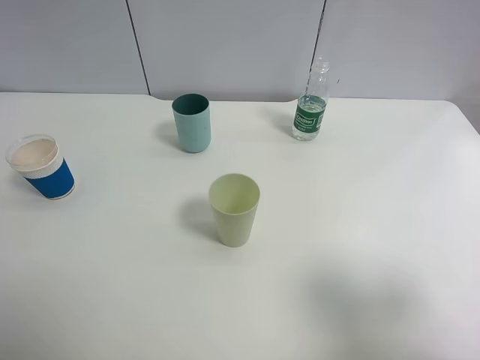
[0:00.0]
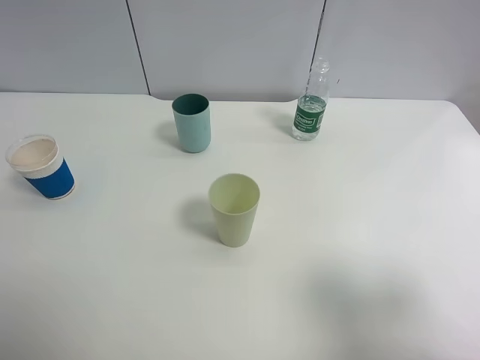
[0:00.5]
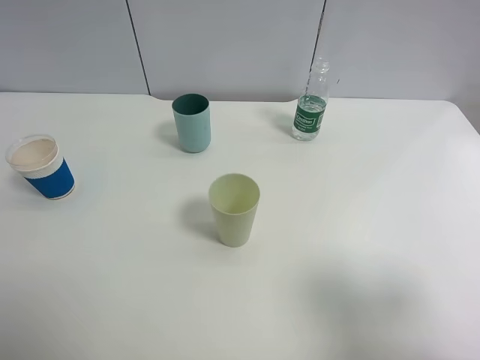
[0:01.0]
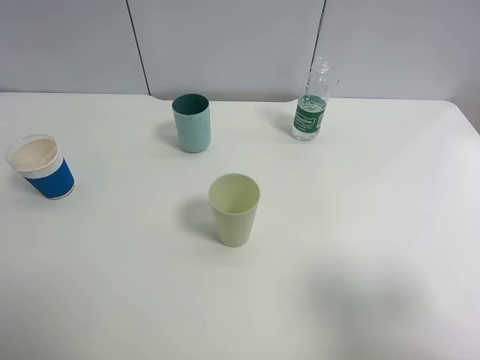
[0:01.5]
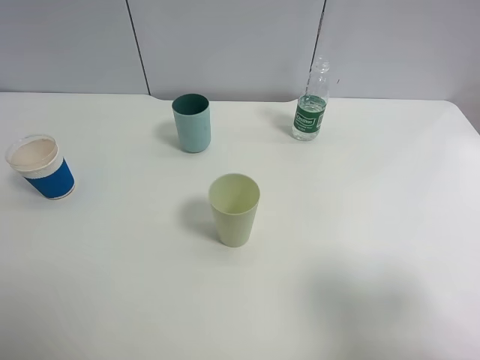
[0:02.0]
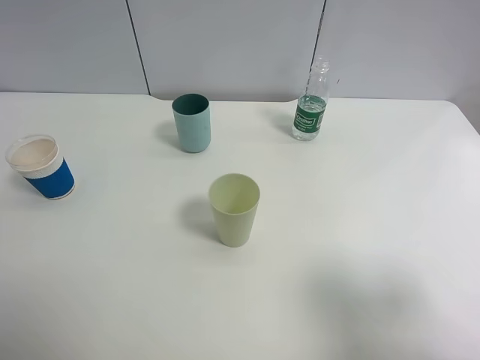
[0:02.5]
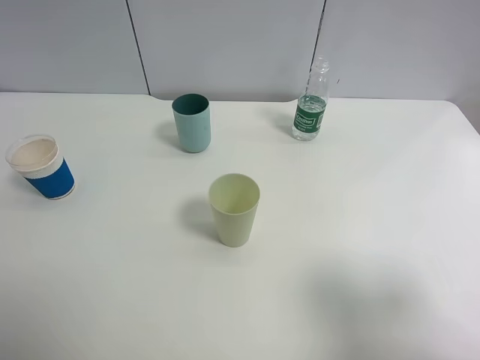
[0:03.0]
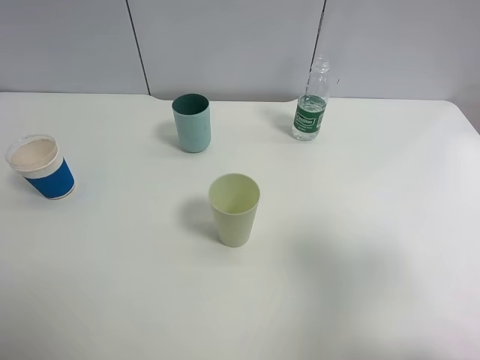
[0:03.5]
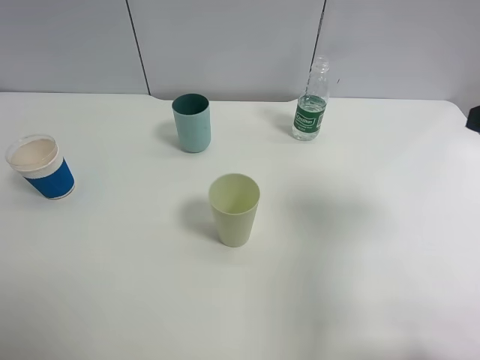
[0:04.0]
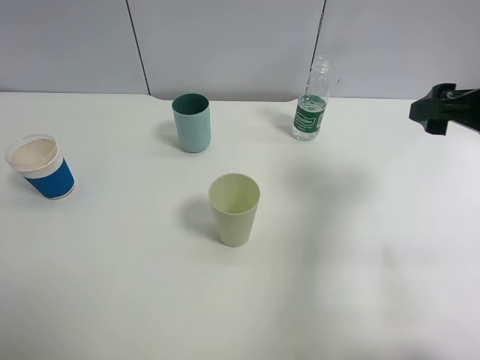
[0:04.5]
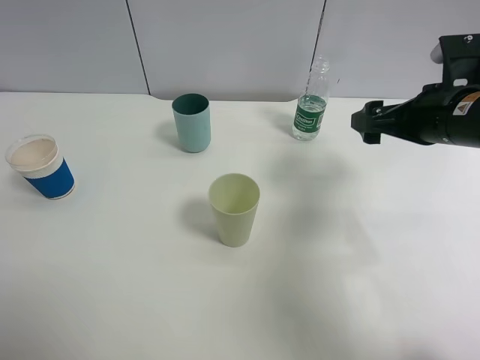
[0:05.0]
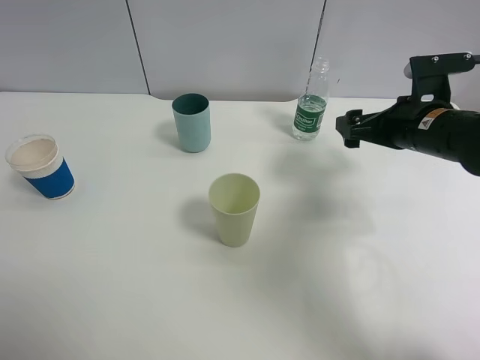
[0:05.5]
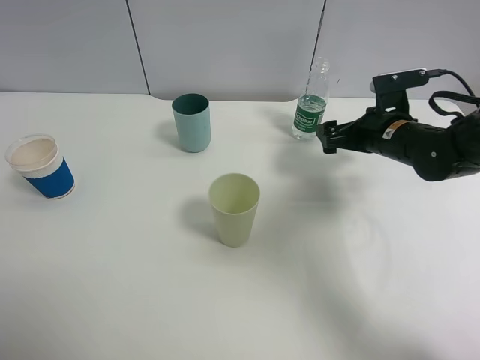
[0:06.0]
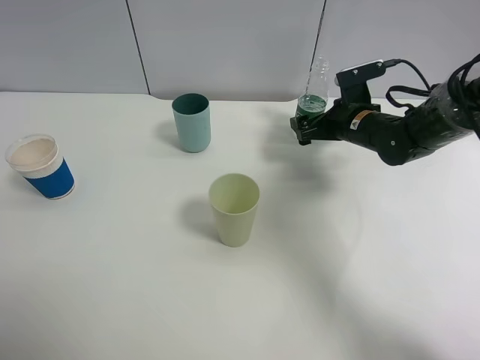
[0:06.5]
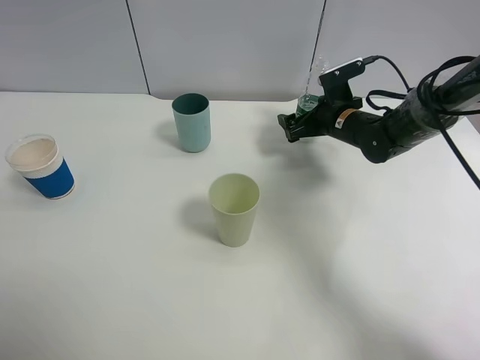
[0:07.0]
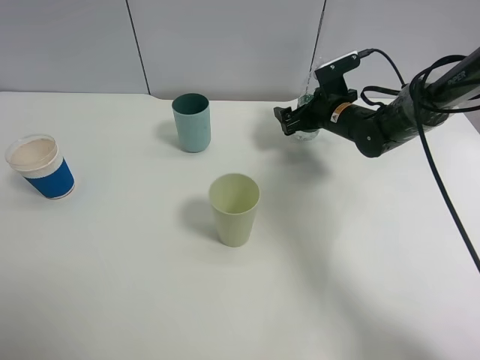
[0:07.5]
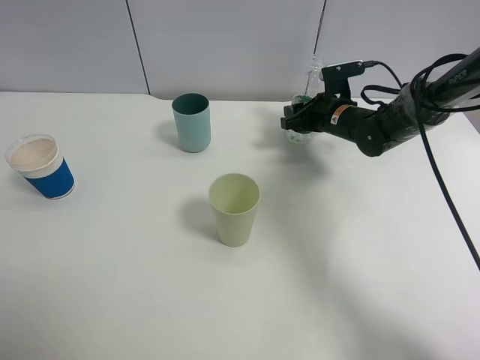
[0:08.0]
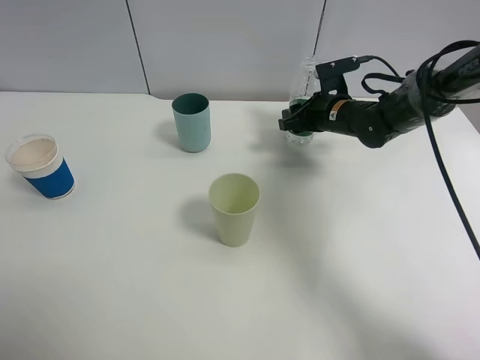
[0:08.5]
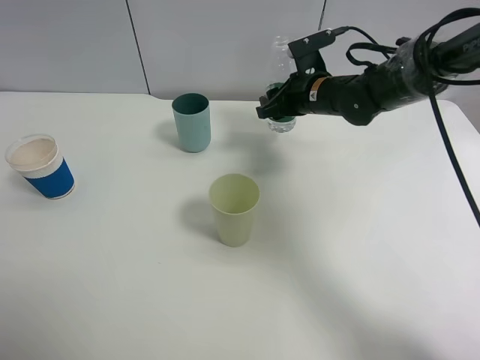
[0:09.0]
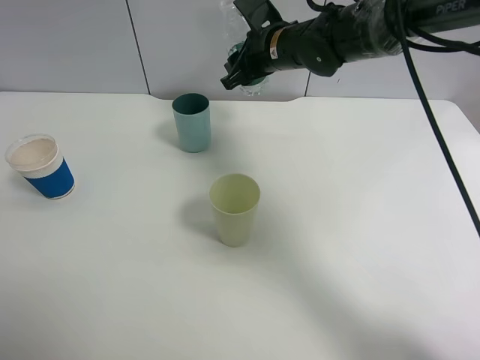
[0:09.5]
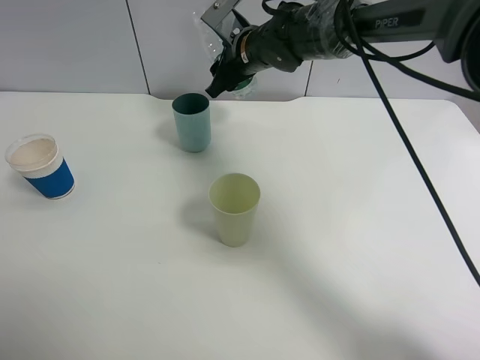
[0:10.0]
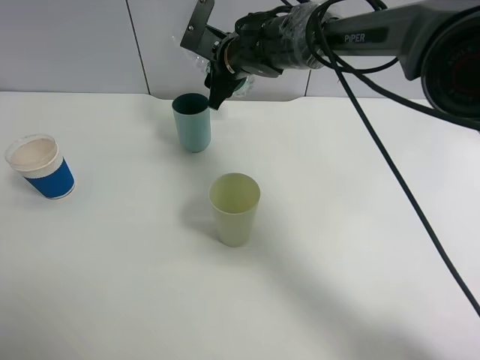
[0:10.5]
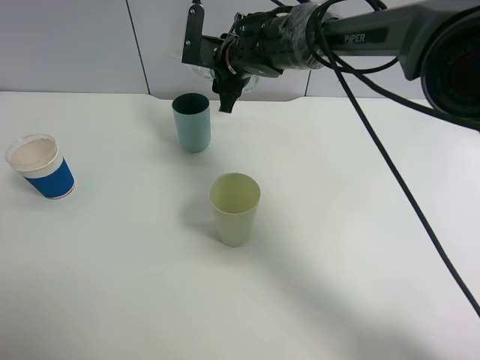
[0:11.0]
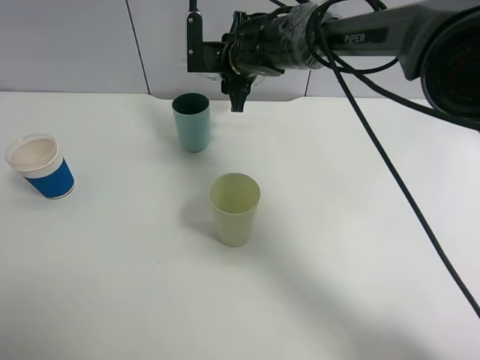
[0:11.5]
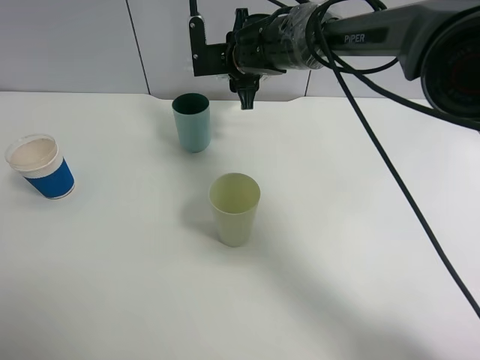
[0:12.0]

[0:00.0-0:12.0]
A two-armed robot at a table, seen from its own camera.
Task of the whole recording: use a clamp to hold the bottle of the drink, pour the beverage into a random cup, then clamp the cup containing the drink and pour the drink into another random cup.
Step, 0:00.0 to 0:08.5: Pick up the water bottle with right gripper.
0:00.0 to 0:02.0: The two grippers keep their place.
0:02.0 to 0:04.0: The right gripper travels forward by about 15 cm.
0:04.0 to 0:06.0: The right gripper shifts about 25 cm forward and downward.
0:06.0 to 0:08.0: The right gripper is displaced forward by about 10 cm, and closes up.
0:08.0 to 0:10.0: The right gripper shifts some 20 cm to the left and upward.

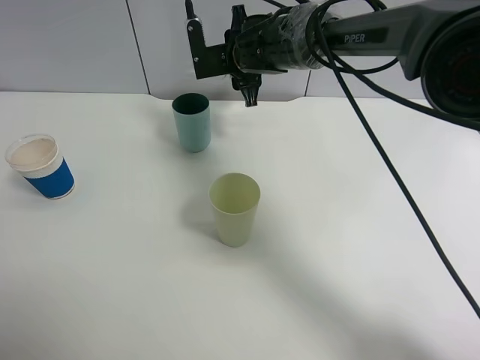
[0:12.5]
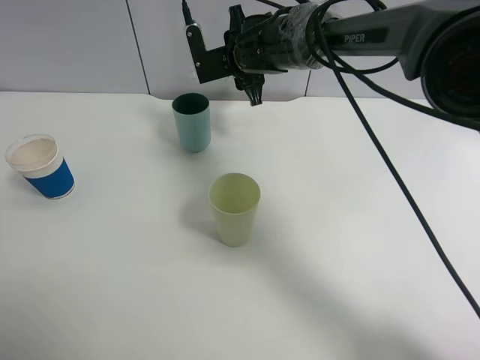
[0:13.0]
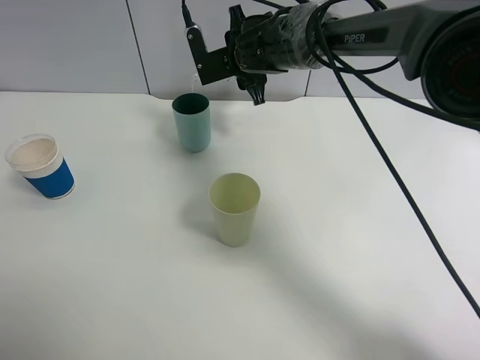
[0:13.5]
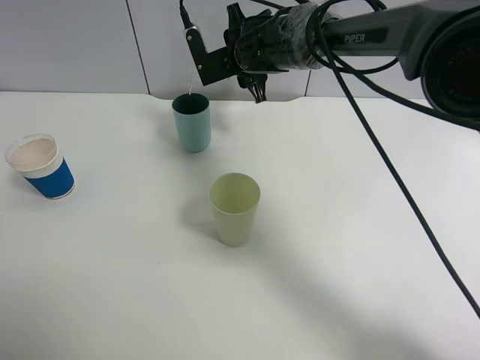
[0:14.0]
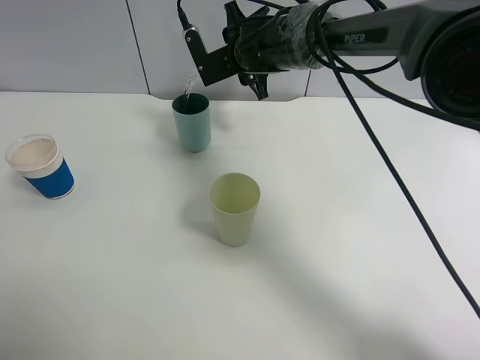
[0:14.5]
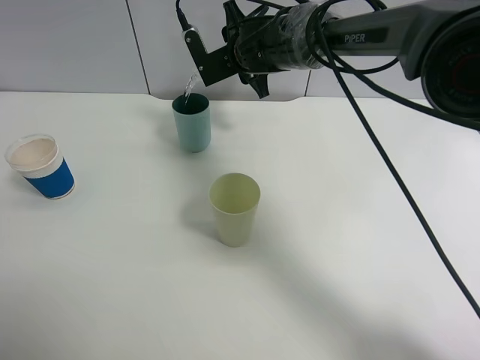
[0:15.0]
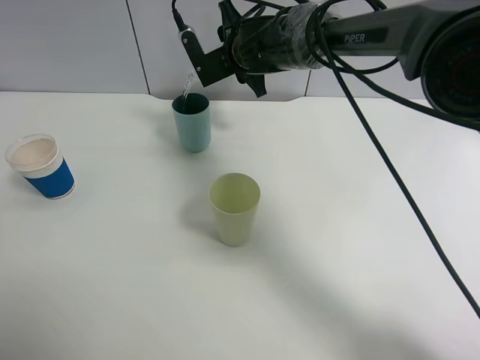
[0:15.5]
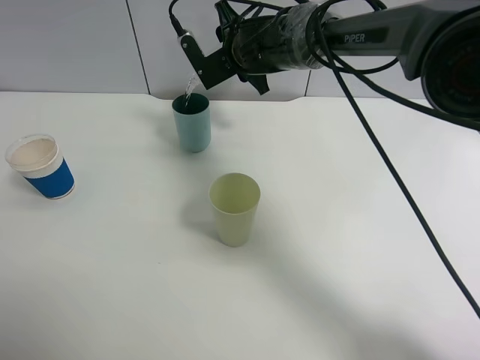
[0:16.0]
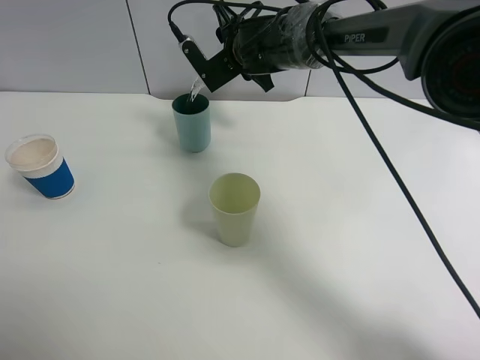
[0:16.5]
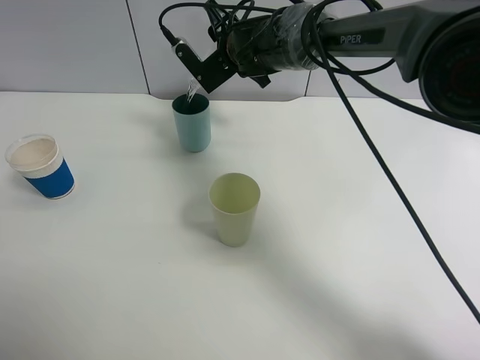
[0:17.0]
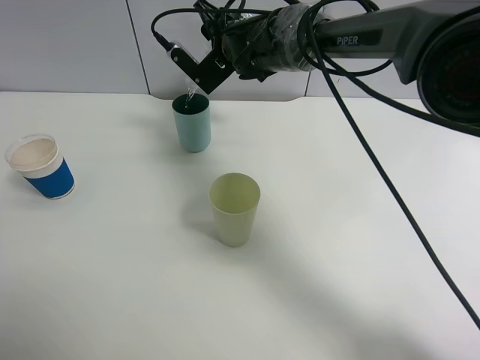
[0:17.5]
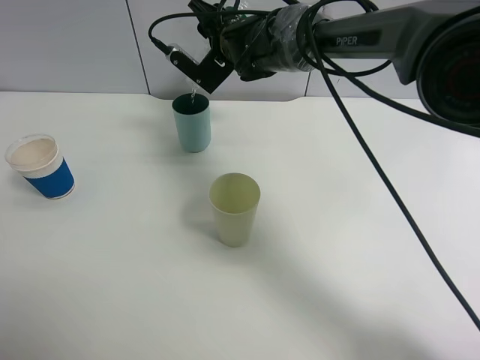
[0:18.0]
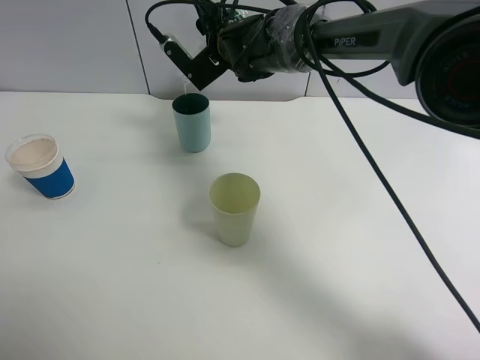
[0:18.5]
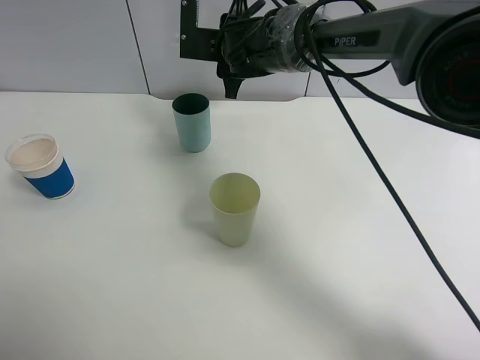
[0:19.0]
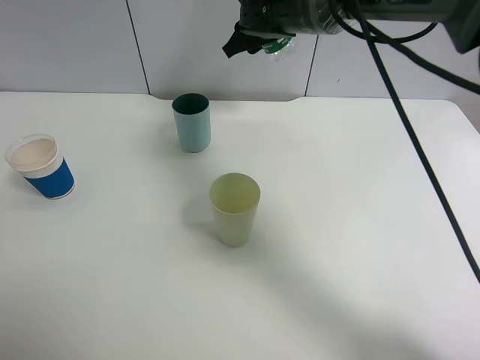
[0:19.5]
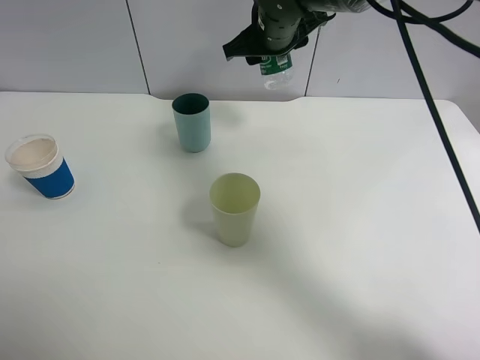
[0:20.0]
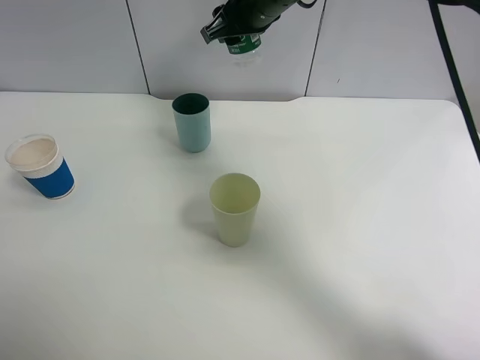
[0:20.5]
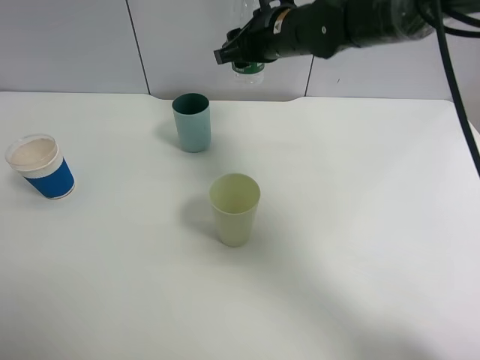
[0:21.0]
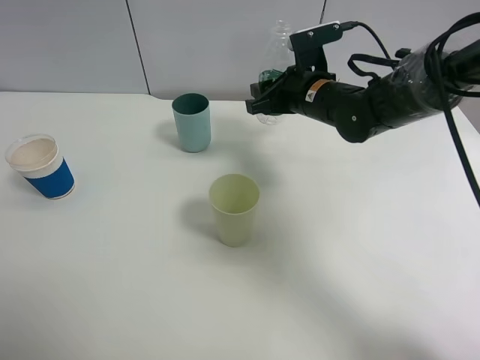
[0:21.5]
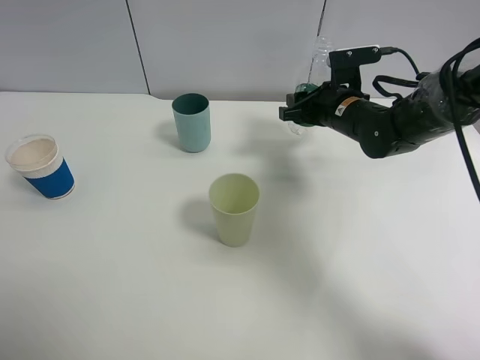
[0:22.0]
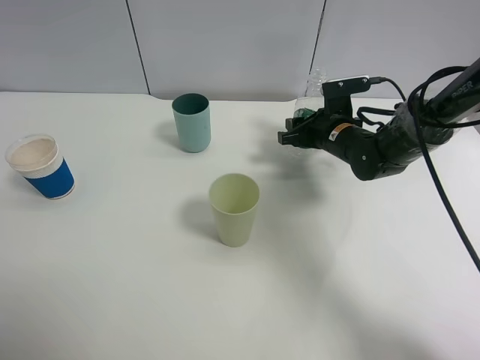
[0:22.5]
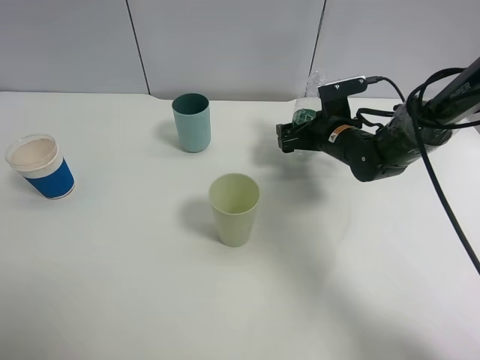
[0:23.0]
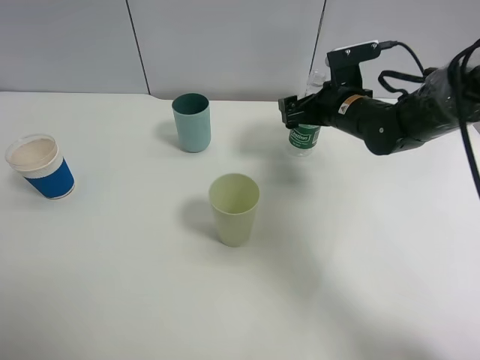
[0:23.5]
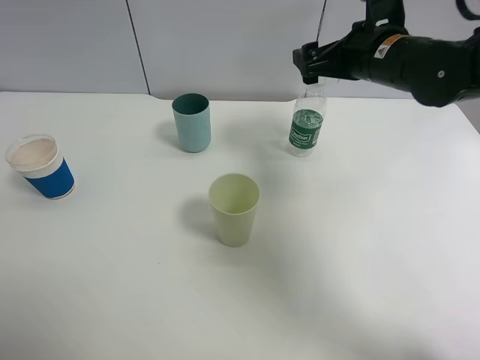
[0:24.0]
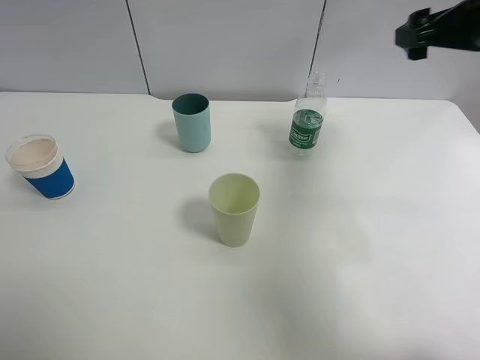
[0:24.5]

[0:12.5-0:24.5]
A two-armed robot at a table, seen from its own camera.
Task of the whole recording: use a clamp to hold the bottle of the drink, pour the beverage into a random cup, then clamp the cup containing the drink and pour the drink into another random cup.
Step, 0:12.5 to 0:18.5: Pour the drink into the blue plastic cup with right gripper.
Step, 0:19.0 to 0:23.5: Place the water bottle on the table with right gripper.
0:12.5 to 0:14.5: There are only small adjustments of the grippers.
0:14.5 to 0:16.5: The grippers move only a little.
0:16.5 to 0:18.5: There are only small adjustments of the grippers.
0:18.5 to 0:20.5: The right gripper shifts about 10 cm upward.
0:20.5 to 0:22.5: The right gripper moves downward and to the right, approximately 25 cm.
0:22.5 to 0:24.5: The right gripper goes about 25 cm upward and to the right, and opens up.

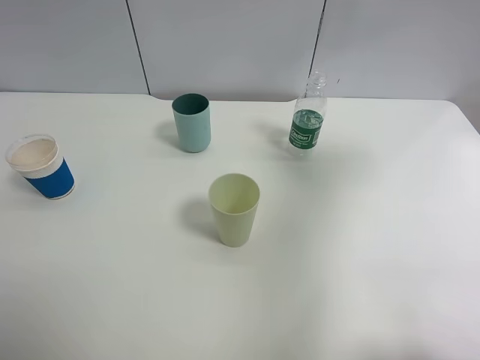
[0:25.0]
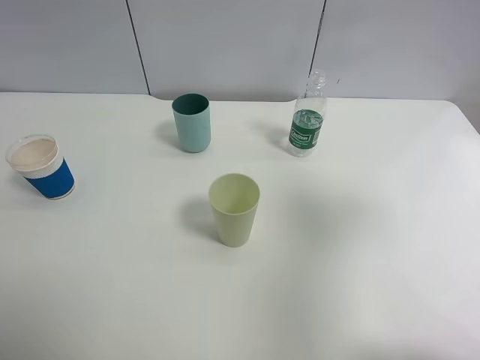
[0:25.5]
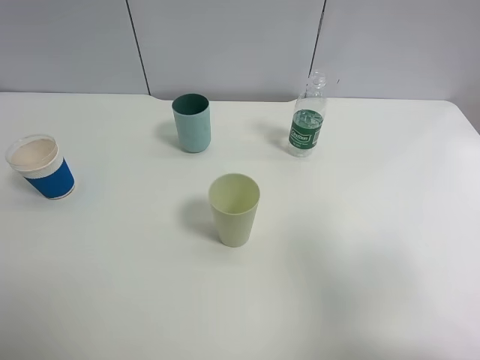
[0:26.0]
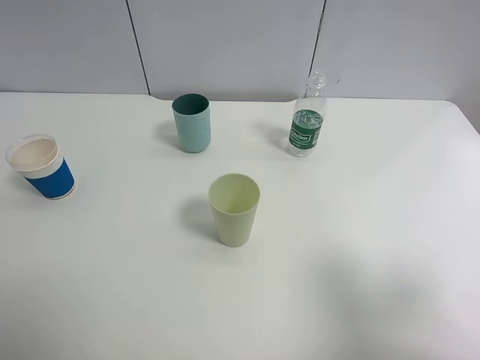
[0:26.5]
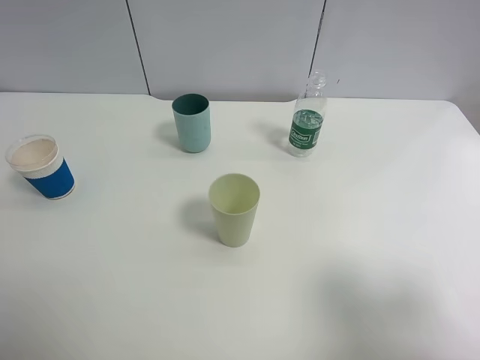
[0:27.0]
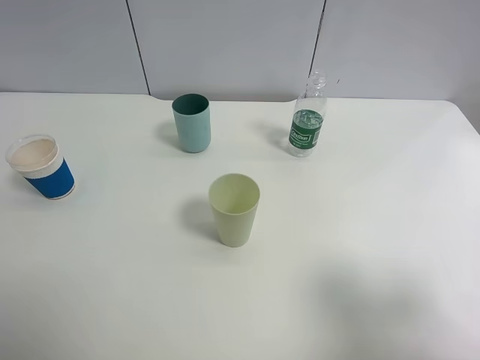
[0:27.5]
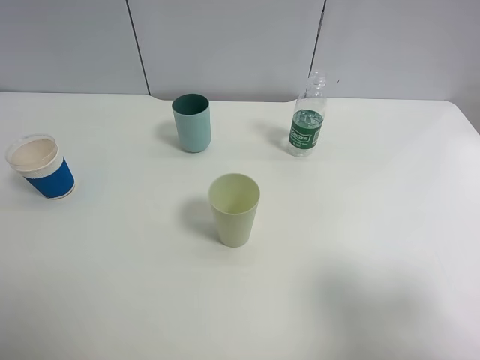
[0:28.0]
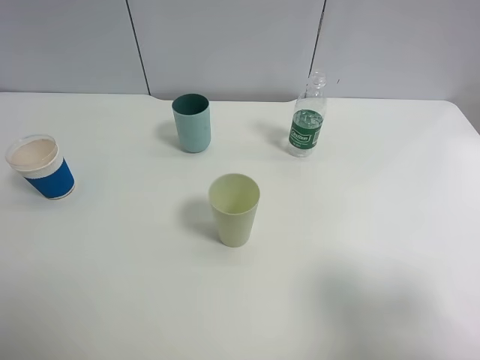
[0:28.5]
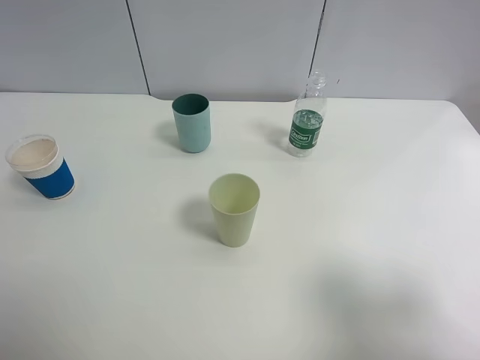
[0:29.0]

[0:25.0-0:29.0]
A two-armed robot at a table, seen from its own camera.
Task of the whole recording: use a clamp to hold the bottle of the drink, pour the beverage into a random cup, then clamp the cup containing the drink and pour the drink into another random cup.
0:25.0 to 0:27.0: The right gripper shifts about 25 cm backward and downward.
0:27.0 to 0:29.0: The two grippers keep their place.
